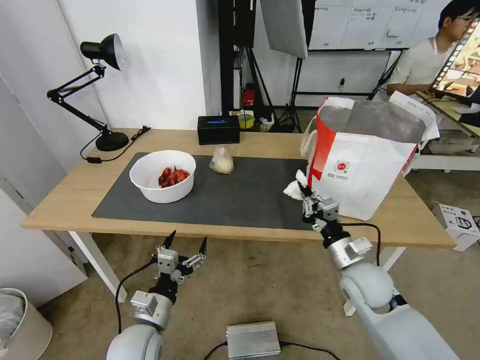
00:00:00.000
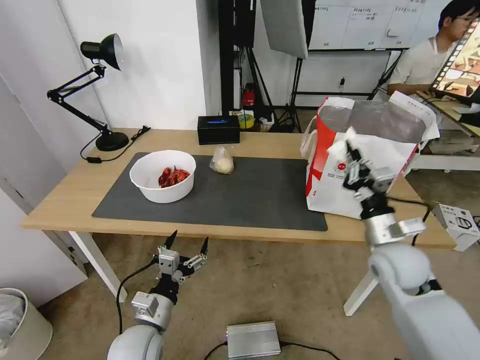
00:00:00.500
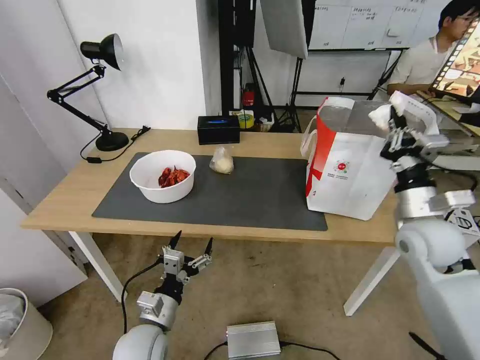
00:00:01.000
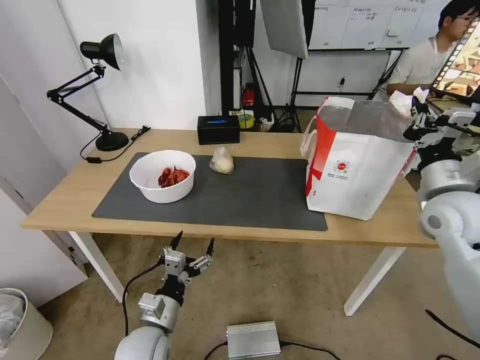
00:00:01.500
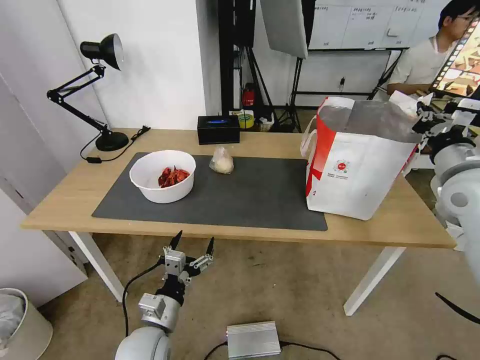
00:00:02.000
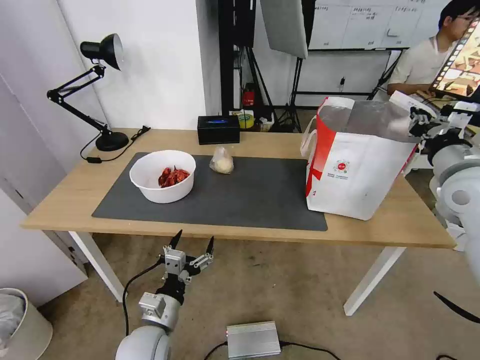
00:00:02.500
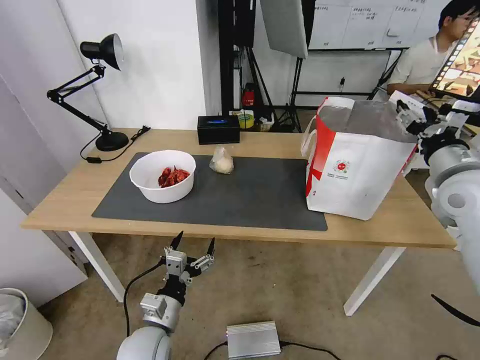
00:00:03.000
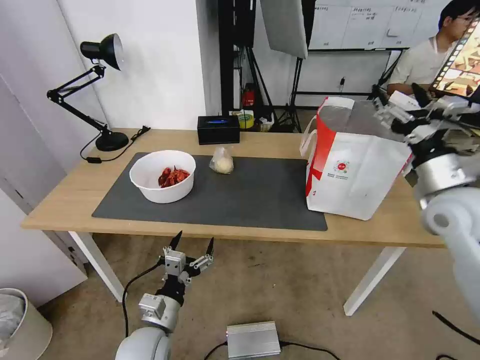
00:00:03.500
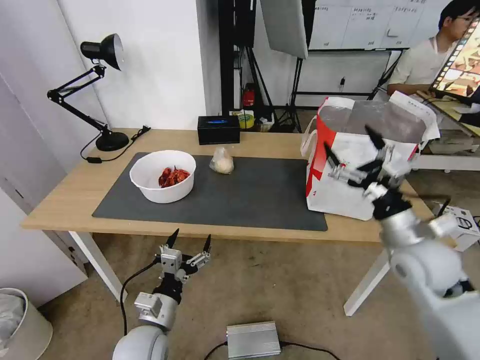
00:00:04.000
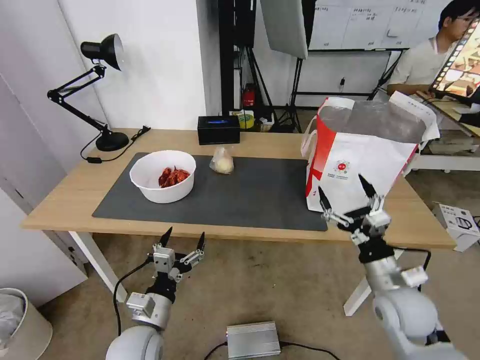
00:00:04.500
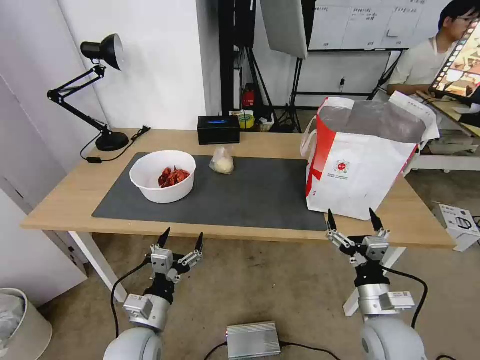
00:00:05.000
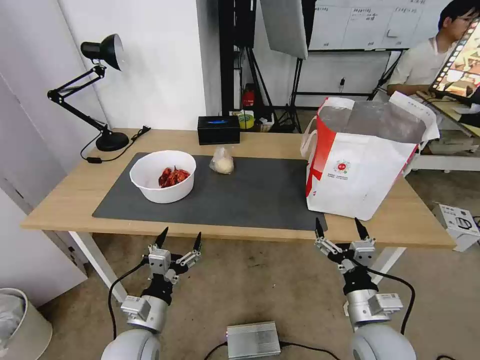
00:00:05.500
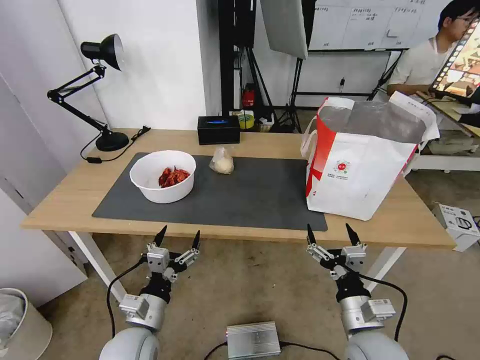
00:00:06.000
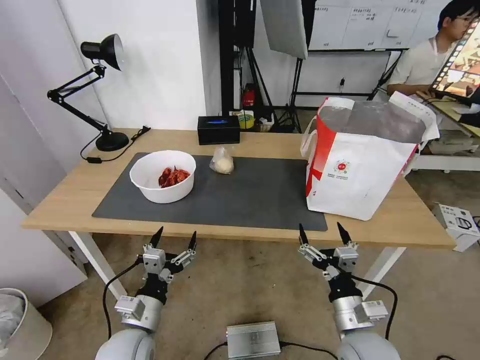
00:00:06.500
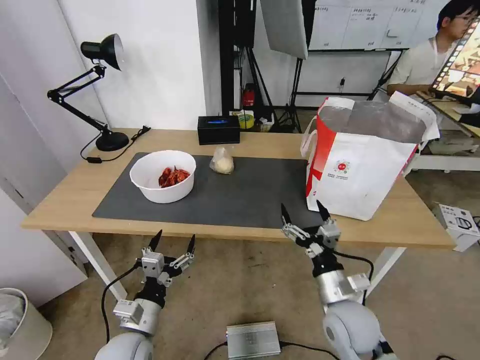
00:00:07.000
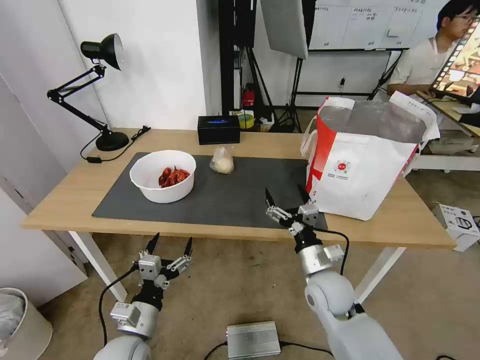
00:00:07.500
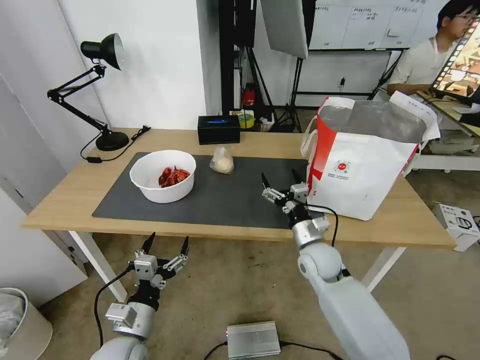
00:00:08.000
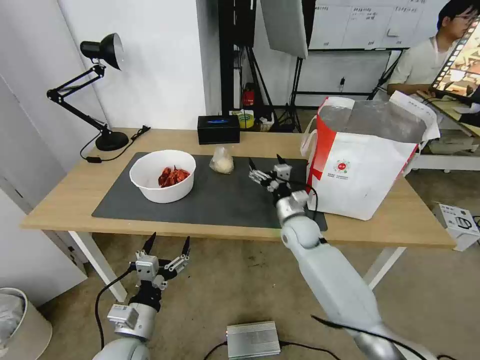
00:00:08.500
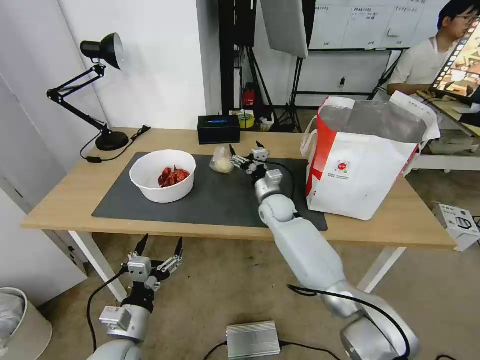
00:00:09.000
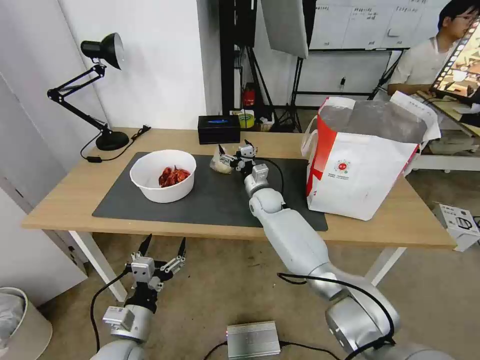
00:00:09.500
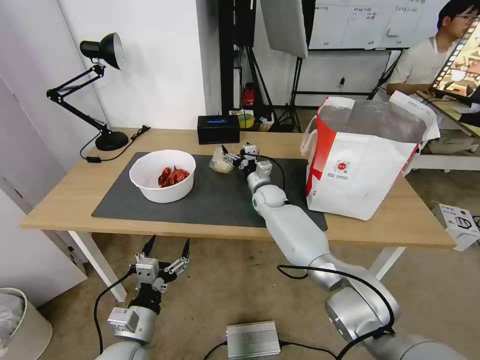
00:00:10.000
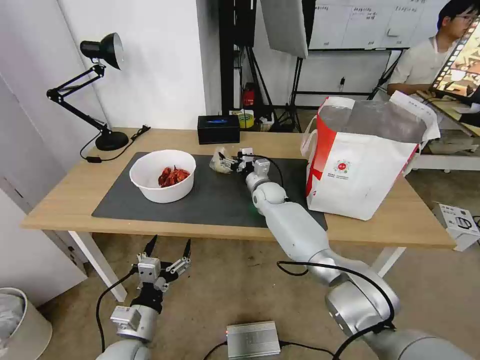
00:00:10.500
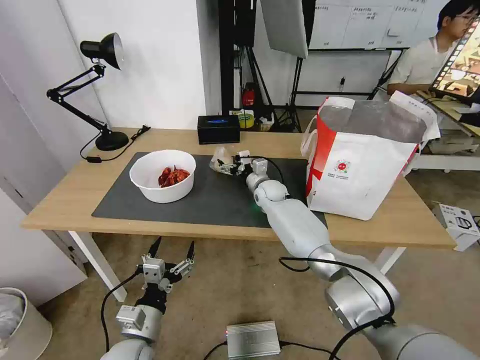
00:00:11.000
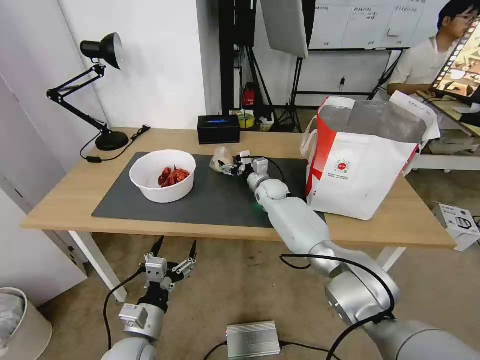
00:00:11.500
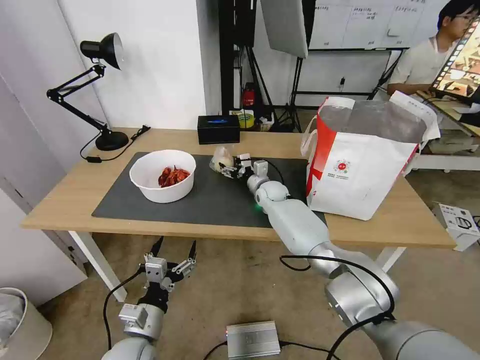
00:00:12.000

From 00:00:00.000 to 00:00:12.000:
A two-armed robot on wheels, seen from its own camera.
Task of the whole recording: Pick up the trash from the table and place it into the takeout bag.
From 00:00:00.000 to 00:00:02.000: The right gripper travels upward and to the right by roughly 25 cm.
From 00:00:02.000 to 00:00:04.000: The right gripper heads downward, to the left and backward, covering roughly 15 cm, and opens.
From 00:00:04.000 to 00:00:06.000: The right gripper goes roughly 20 cm downward, backward and to the left.
From 00:00:06.000 to 00:00:08.000: The right gripper heads forward, covering approximately 20 cm.
From 00:00:08.000 to 00:00:10.000: The right gripper is displaced forward and to the left by roughly 25 cm.
From 00:00:10.000 to 00:00:12.000: The grippers stay close to where they were, moving slightly.

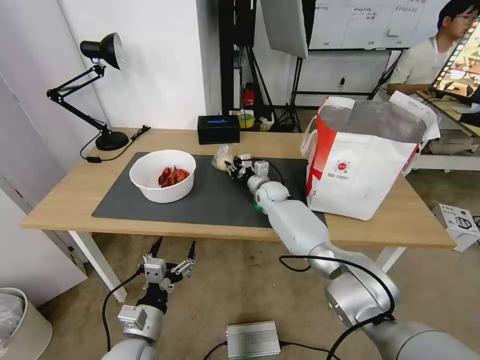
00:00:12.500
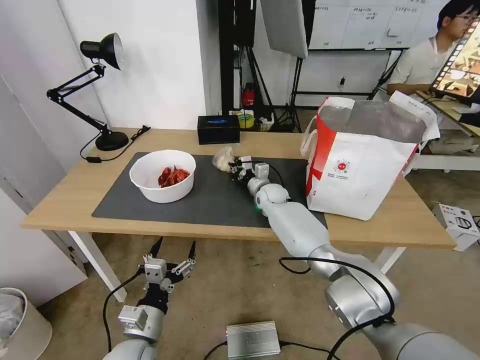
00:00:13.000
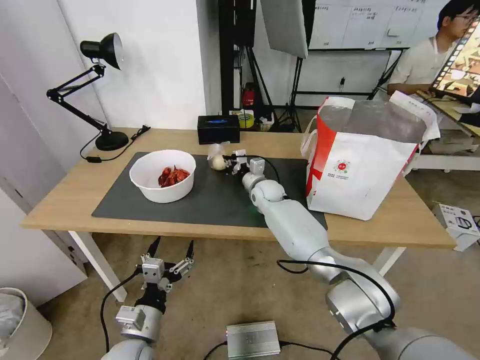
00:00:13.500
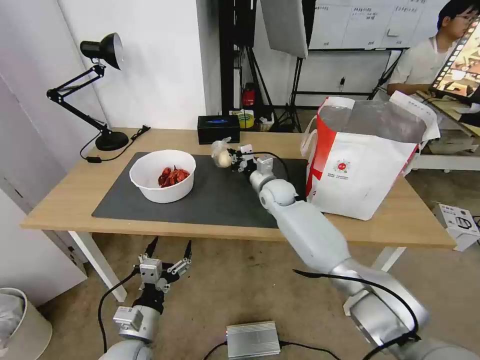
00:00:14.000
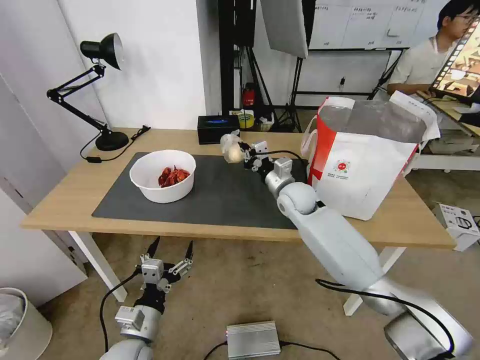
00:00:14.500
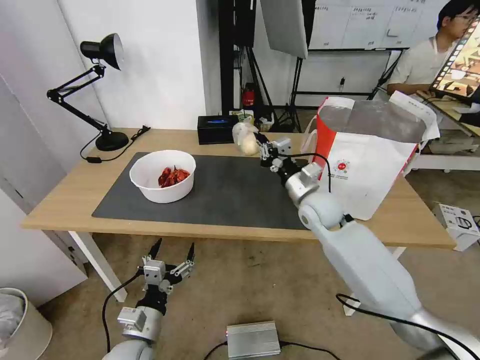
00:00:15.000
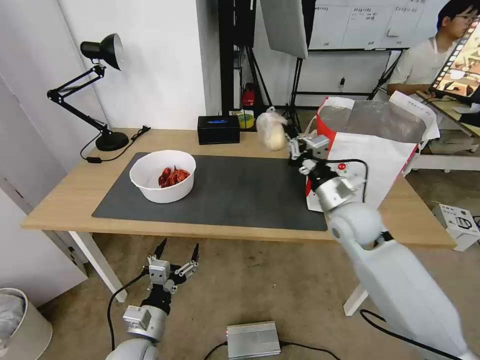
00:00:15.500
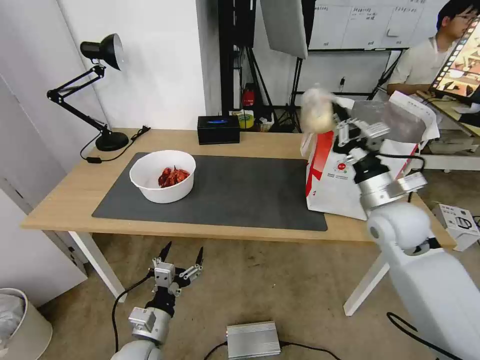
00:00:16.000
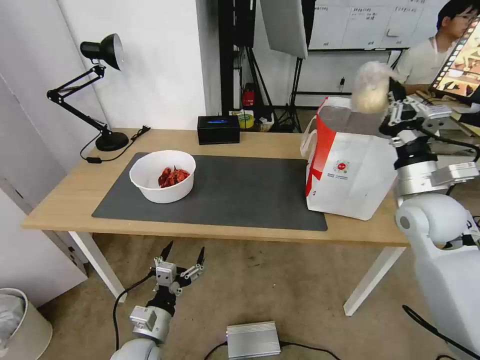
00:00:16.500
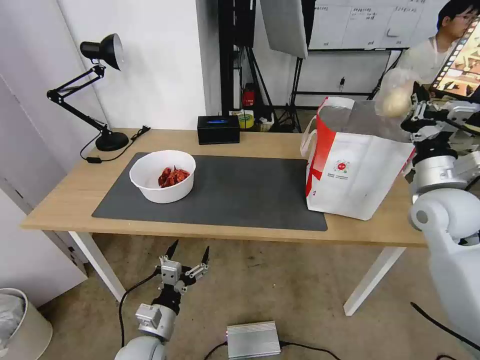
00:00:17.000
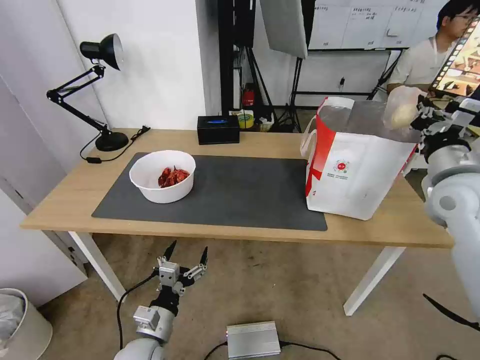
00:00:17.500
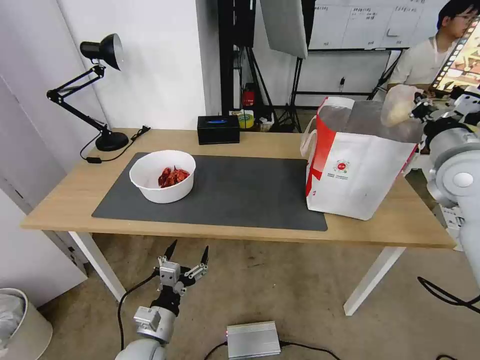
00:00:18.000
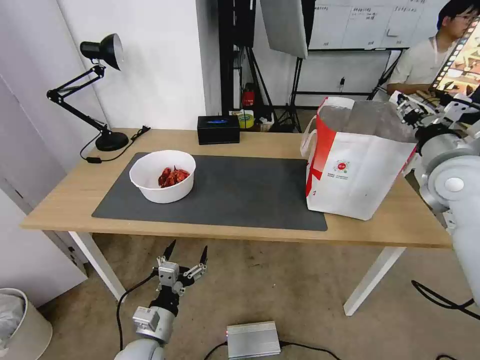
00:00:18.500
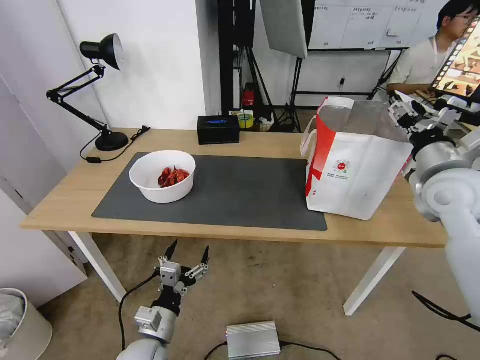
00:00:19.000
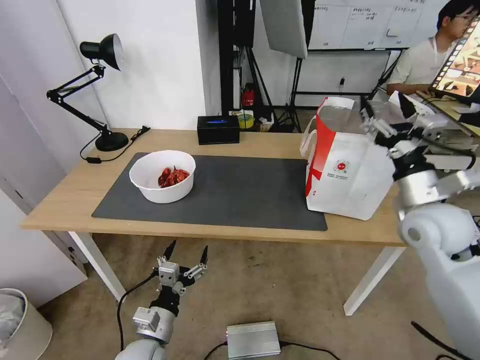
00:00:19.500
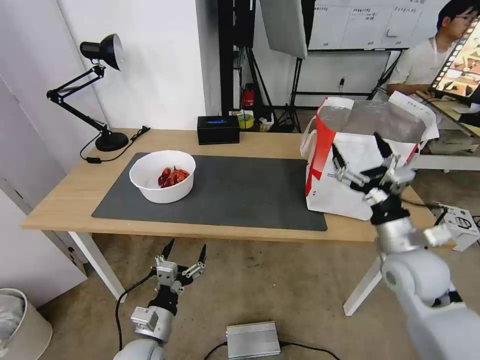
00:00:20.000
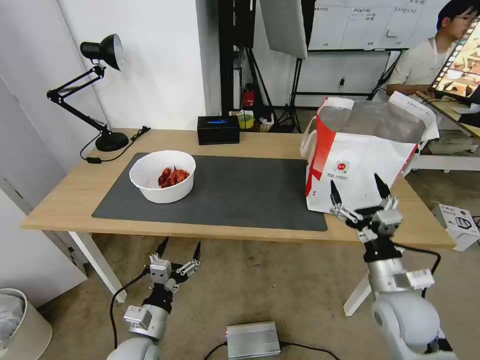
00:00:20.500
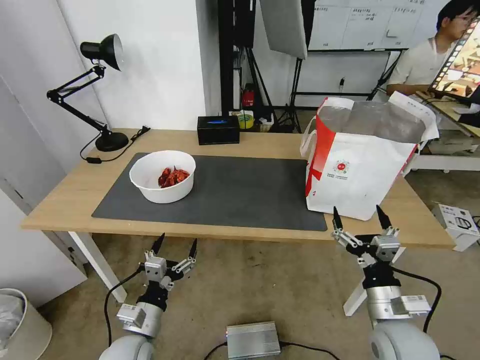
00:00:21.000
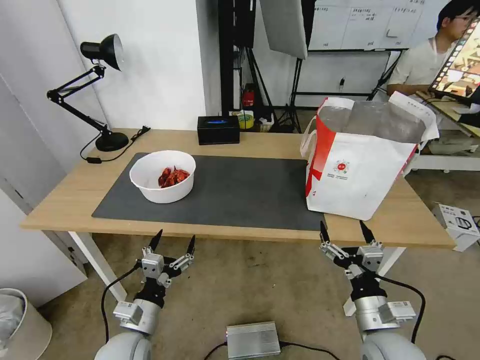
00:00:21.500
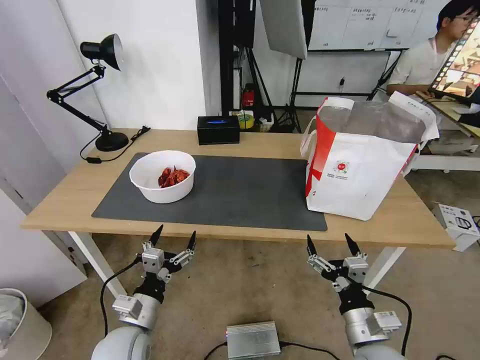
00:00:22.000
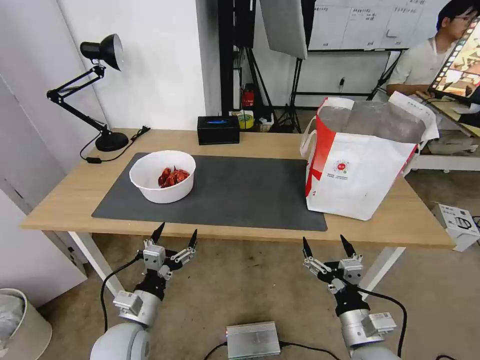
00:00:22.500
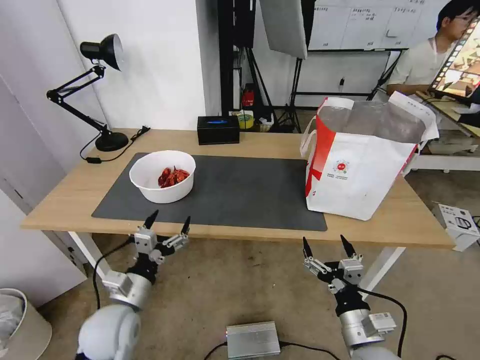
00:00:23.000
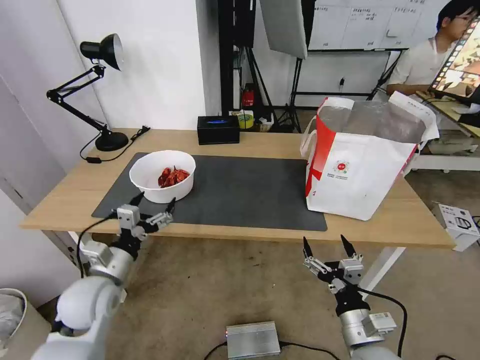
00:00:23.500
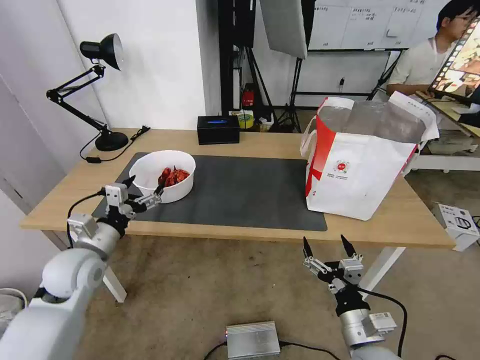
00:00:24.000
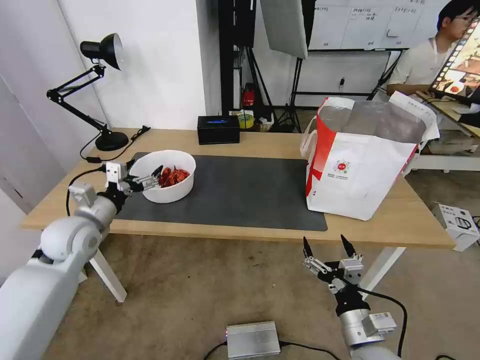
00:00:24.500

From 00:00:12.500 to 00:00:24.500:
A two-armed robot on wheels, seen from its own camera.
Task of the whole recording: Pick up the trash from the table and place it into the takeout bag.
From 00:00:12.500 to 00:00:14.500: The right gripper is displaced backward and upward by some 10 cm.
From 00:00:14.500 to 00:00:16.500: The right gripper is displaced to the right, backward and upward by approximately 25 cm.
From 00:00:16.500 to 00:00:18.500: The right gripper heads upward, covering about 5 cm, and opens.
From 00:00:18.500 to 00:00:20.500: The right gripper travels downward and backward by roughly 25 cm, and opens.
From 00:00:20.500 to 00:00:22.500: The right gripper heads backward and to the left, covering about 10 cm.
From 00:00:22.500 to 00:00:24.500: The left gripper is displaced forward, upward and to the left by approximately 25 cm.

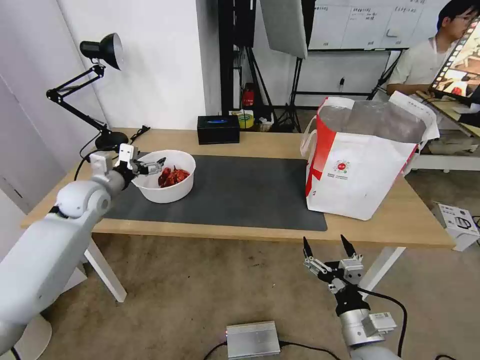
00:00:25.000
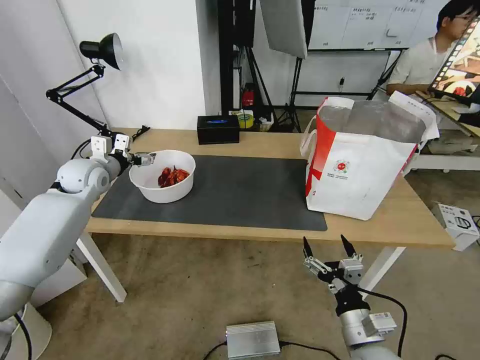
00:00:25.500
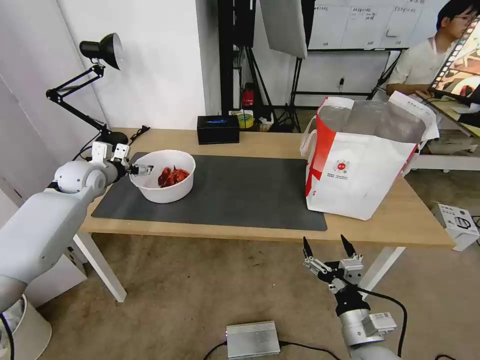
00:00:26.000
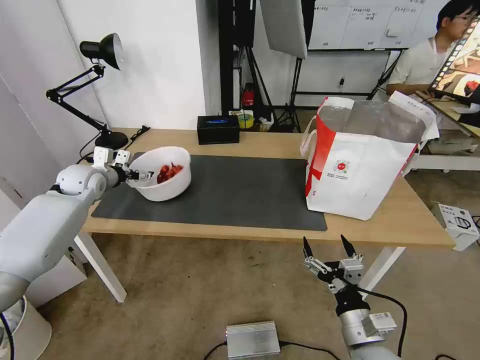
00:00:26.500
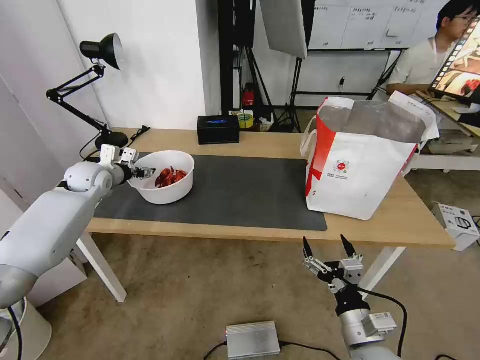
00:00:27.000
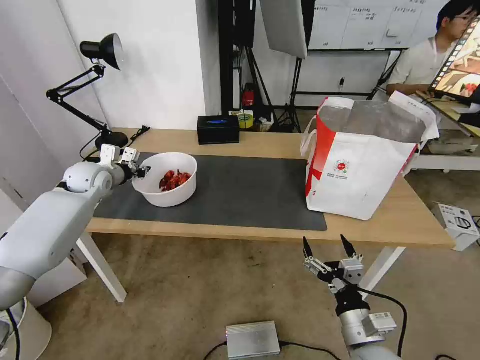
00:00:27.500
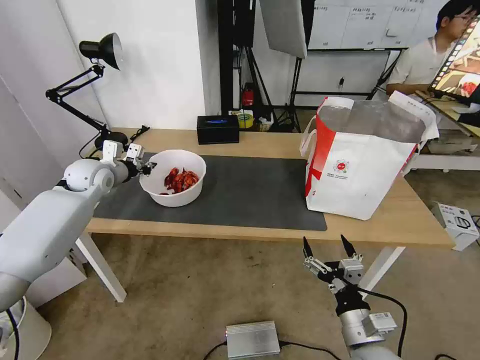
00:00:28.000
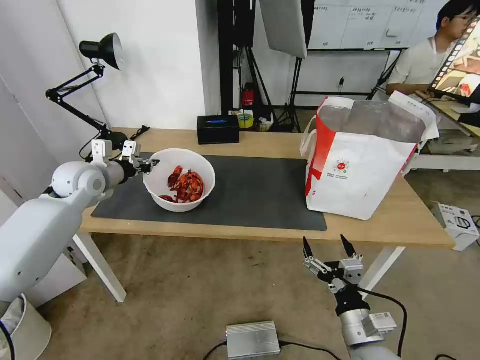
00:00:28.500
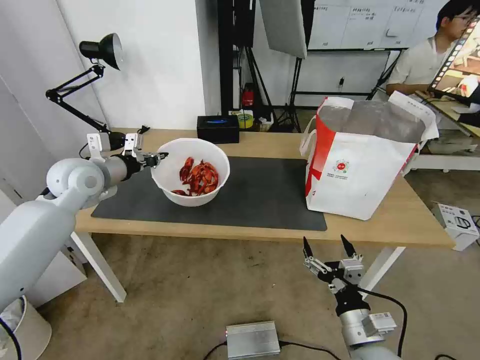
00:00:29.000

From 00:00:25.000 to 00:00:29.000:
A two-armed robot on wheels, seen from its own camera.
Task of the whole recording: Pick up the trash from the table and place it into the takeout bag.
From 00:00:25.000 to 00:00:27.000: The left gripper goes roughly 10 cm forward, and closes.
From 00:00:27.000 to 00:00:29.000: The left gripper travels backward, upward and to the right by about 15 cm, and closes.
